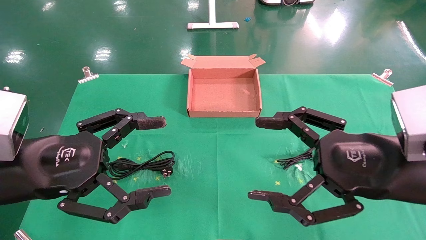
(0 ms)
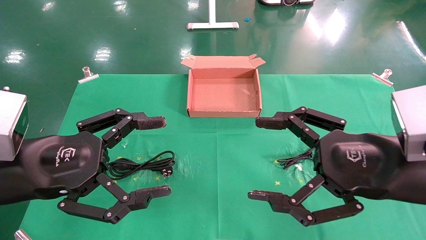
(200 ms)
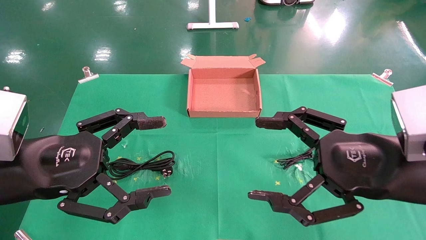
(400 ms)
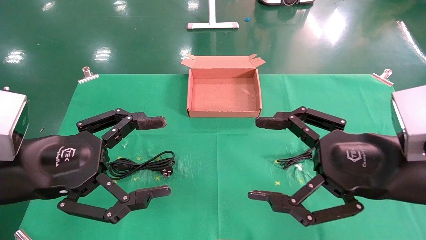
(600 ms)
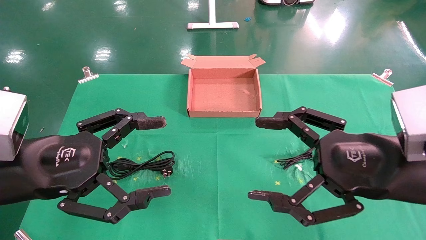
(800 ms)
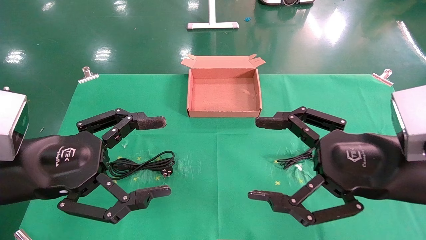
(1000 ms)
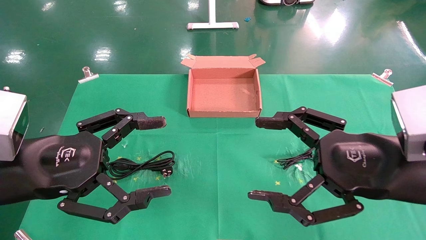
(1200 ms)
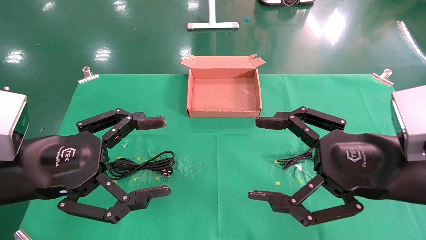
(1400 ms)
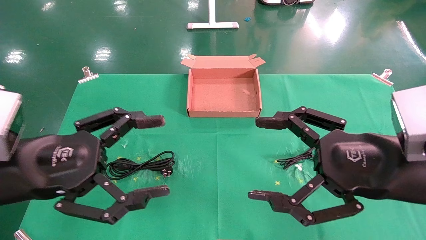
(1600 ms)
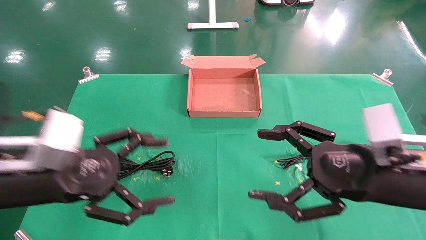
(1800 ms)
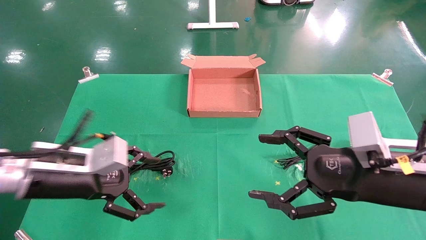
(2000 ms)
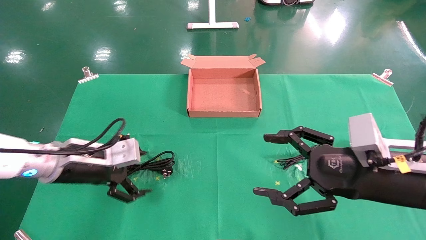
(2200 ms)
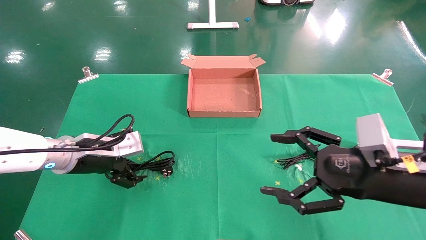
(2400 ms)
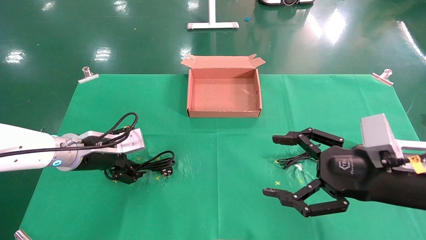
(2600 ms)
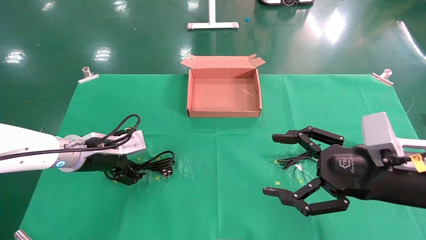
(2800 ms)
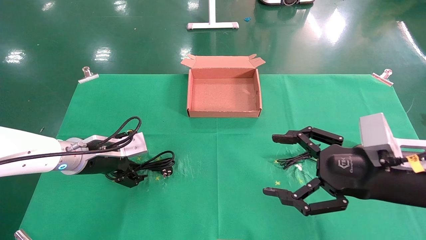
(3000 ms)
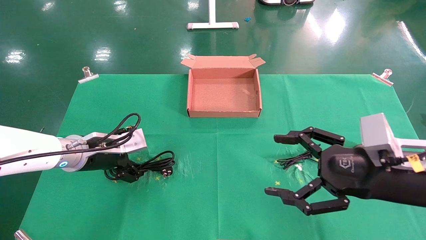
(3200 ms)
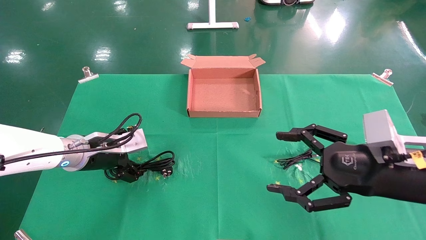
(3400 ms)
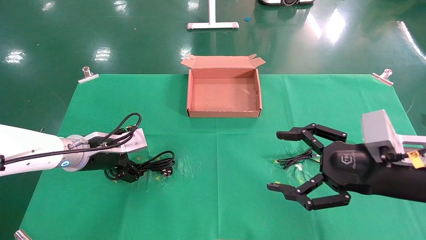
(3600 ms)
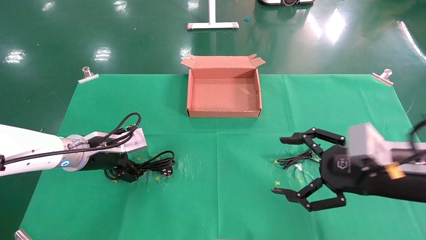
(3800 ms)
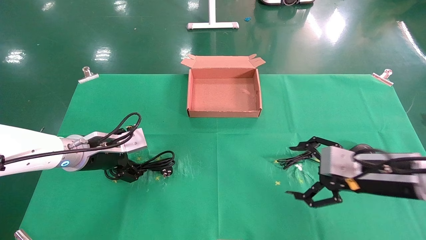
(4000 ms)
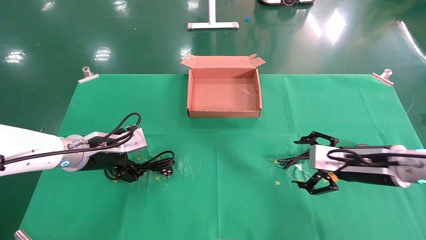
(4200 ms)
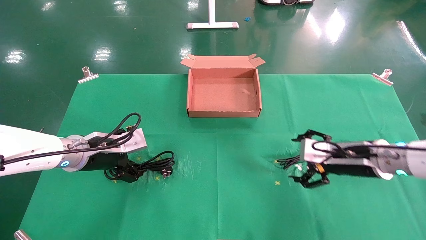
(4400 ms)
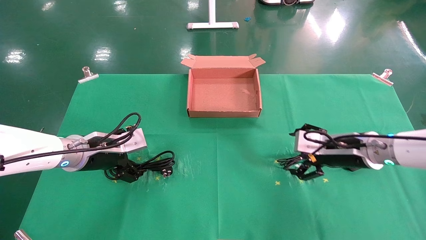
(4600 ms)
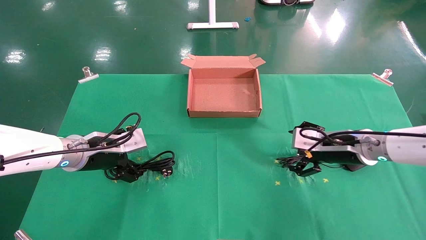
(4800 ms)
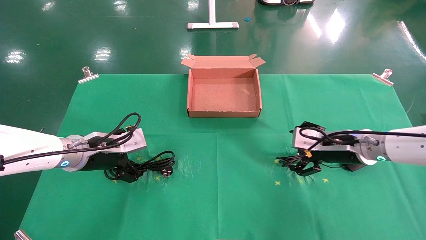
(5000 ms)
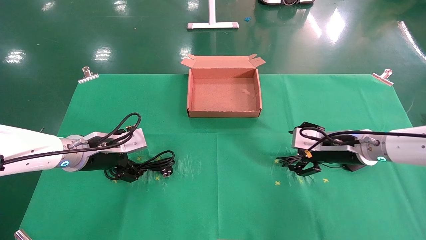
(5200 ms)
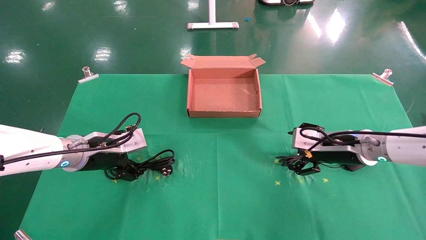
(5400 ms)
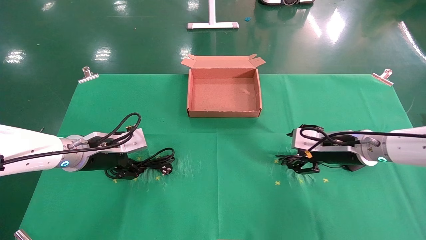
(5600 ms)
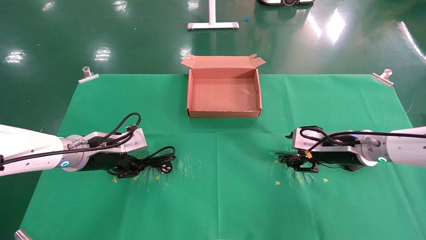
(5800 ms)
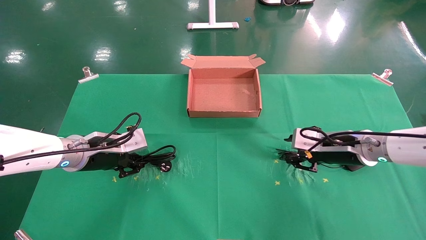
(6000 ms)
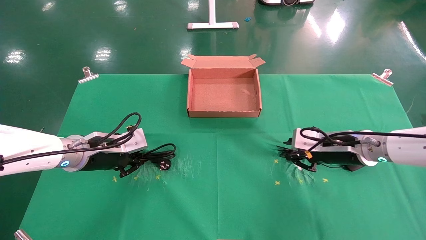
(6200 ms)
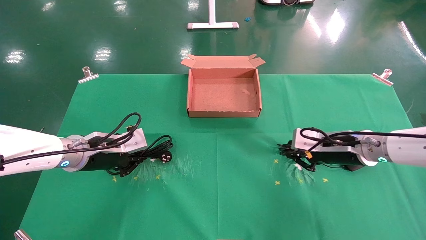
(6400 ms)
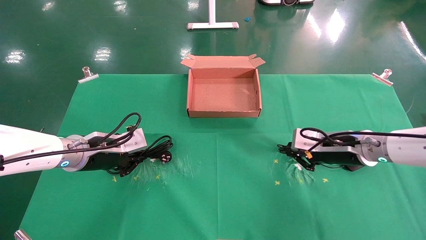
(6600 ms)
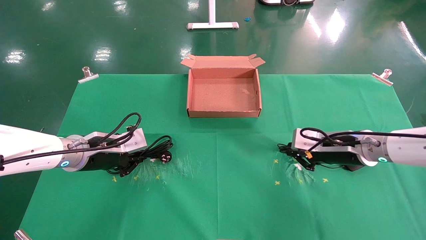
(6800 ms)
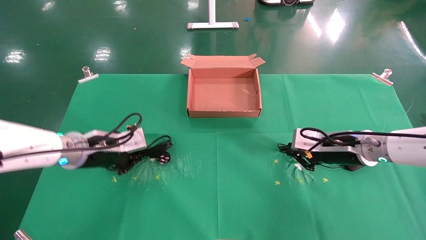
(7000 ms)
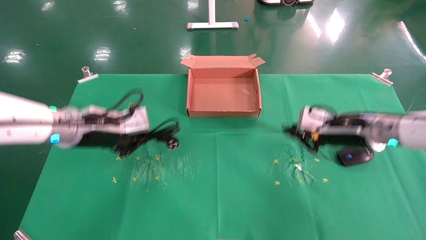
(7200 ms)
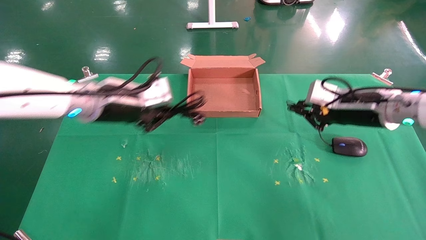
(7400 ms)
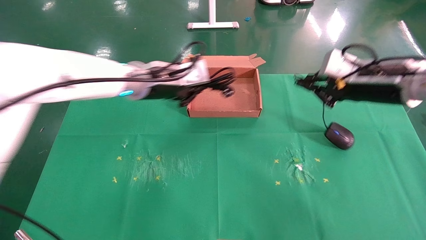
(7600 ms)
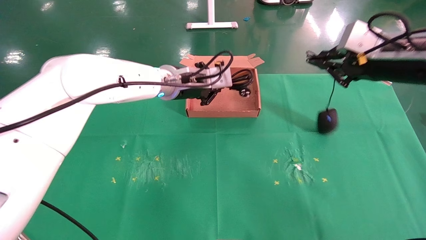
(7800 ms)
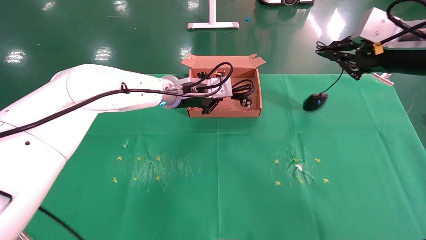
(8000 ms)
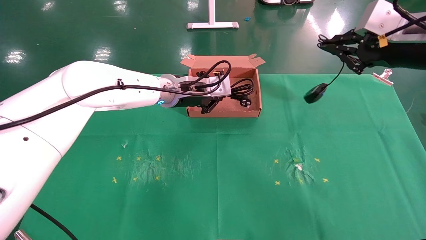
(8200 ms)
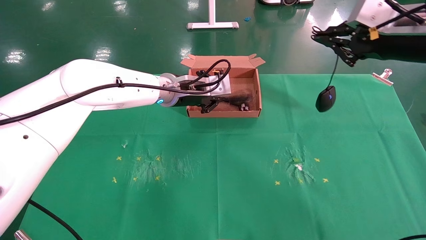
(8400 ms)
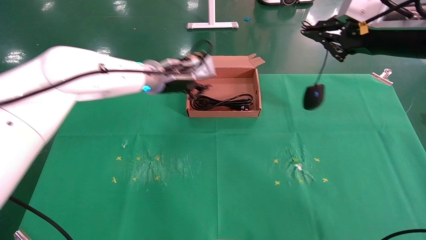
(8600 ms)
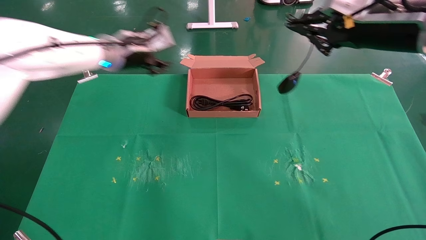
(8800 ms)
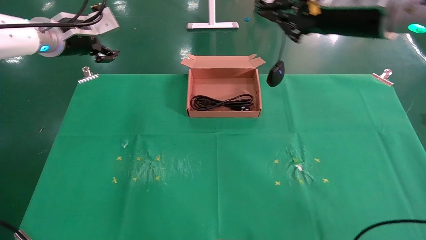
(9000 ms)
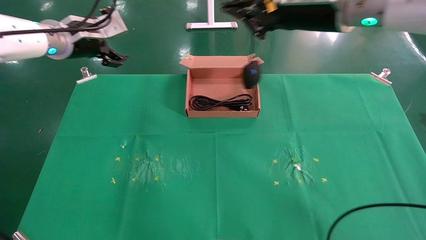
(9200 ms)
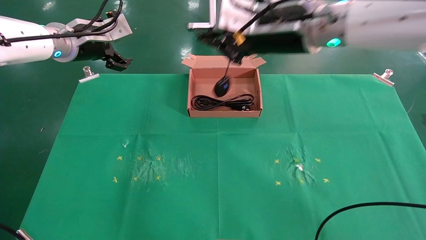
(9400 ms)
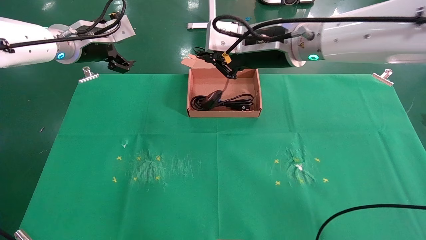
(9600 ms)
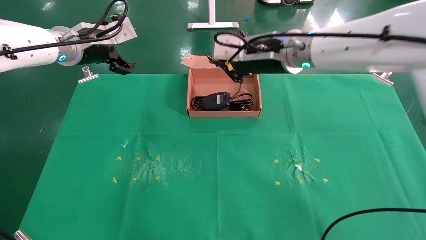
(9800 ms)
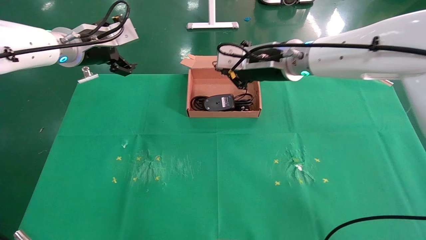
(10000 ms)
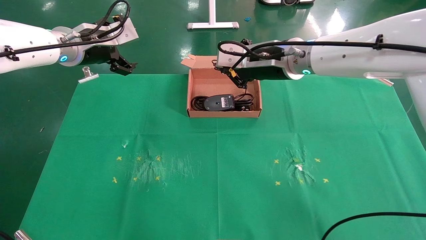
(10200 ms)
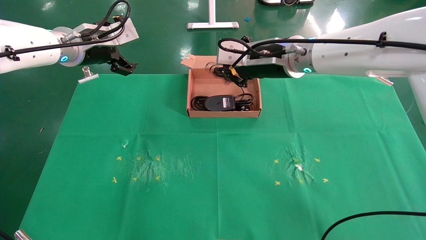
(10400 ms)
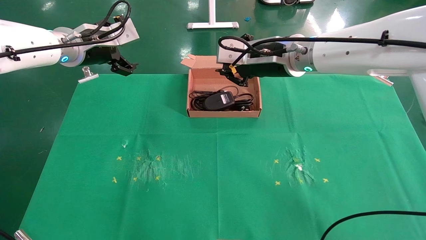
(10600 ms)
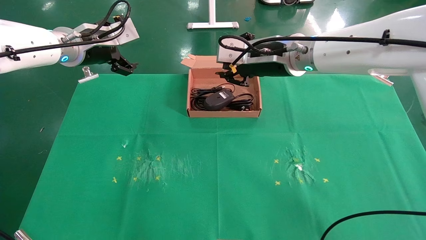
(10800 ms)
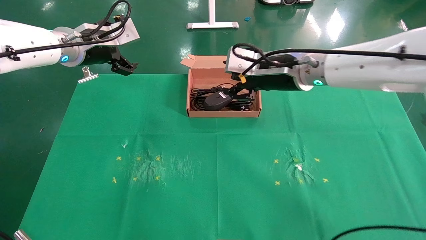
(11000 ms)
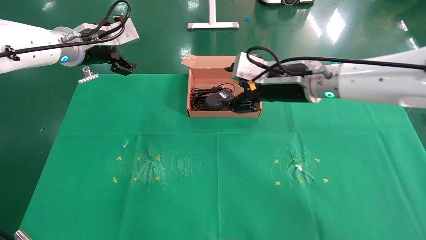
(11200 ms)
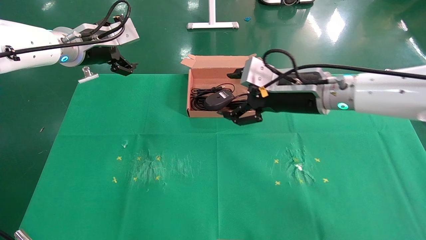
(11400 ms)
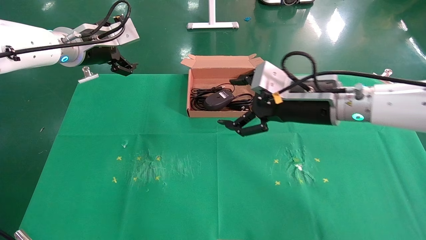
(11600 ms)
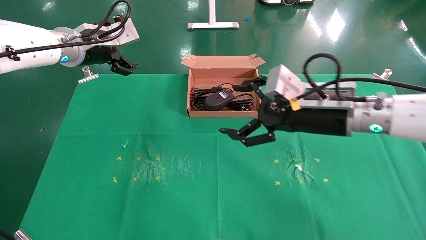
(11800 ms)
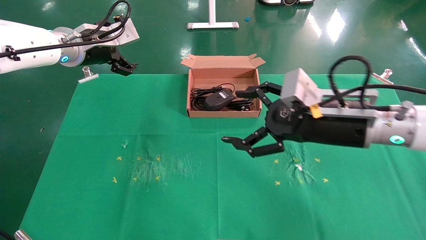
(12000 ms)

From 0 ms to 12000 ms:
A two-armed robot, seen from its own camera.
Task of the whole recording: grasp data cable left put into box grasp mouse right put into box.
Step, from 1800 ms to 6400 ms: Simultaneously pick up the mouse and power cord from the accessory packaging area.
Step, from 6600 ms to 10600 ms: Place the mouse and power cord into the box.
From 0 ms to 1600 ms: The grippers make only small movements.
From 1600 ms to 3000 ms: The right gripper ends up approximately 5 cm from where it was, while the left gripper moves forward, some 15 cm.
From 3000 ms to 4400 ms: The right gripper travels forward by some 10 cm.
From 4400 ms to 6000 ms: The left gripper closes. Meanwhile the right gripper closes up.
From 6000 ms to 7600 ms: The left gripper moves to the right, upward and forward, roughly 20 cm, and closes its fingers. Meanwhile the right gripper shifts roughly 15 cm upward, and closes its fingers.
From 7600 ms to 9000 ms: The left gripper goes about 15 cm to the left and upward, and opens up. Meanwhile the right gripper moves upward and to the left, about 15 cm.
From 9000 ms to 10400 ms: The left gripper opens. Meanwhile the right gripper shifts about 15 cm to the left, forward and downward.
From 10400 ms to 12000 ms: The right gripper travels backward, to the right and downward by about 15 cm, and opens its fingers.

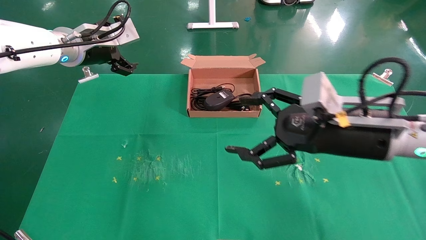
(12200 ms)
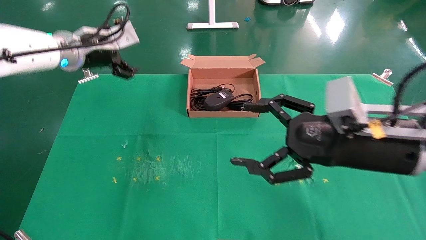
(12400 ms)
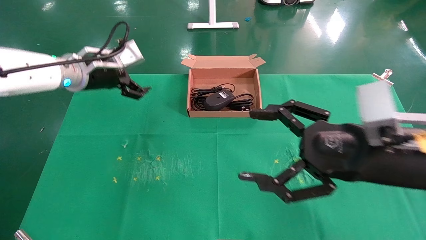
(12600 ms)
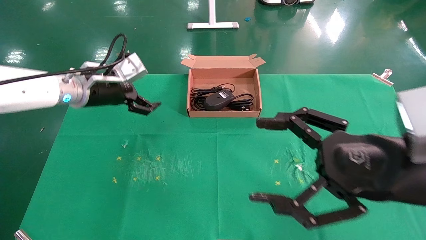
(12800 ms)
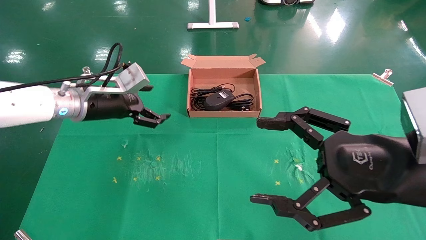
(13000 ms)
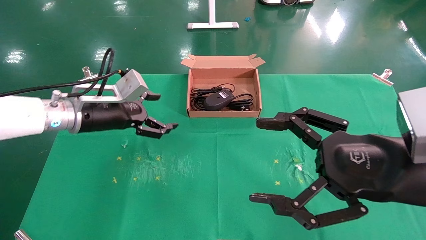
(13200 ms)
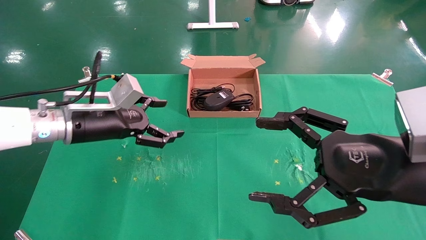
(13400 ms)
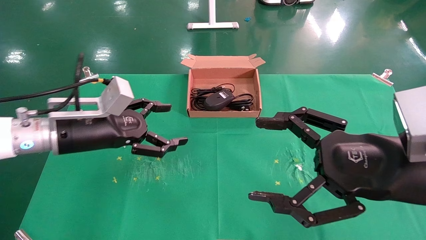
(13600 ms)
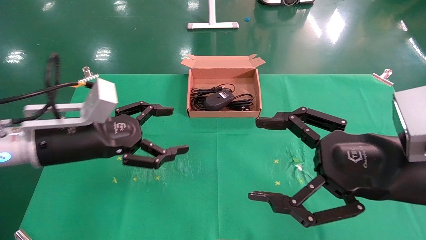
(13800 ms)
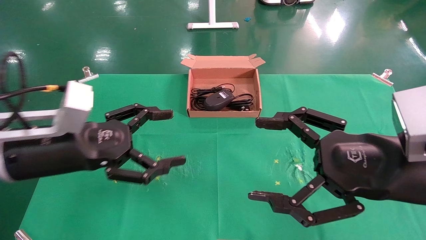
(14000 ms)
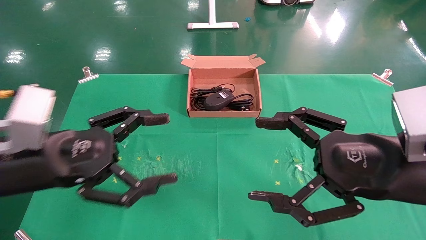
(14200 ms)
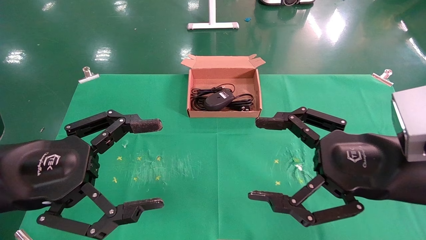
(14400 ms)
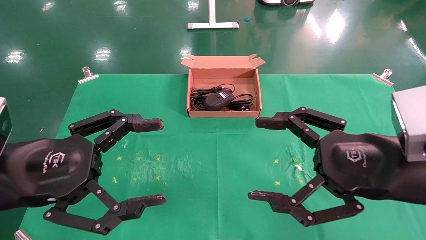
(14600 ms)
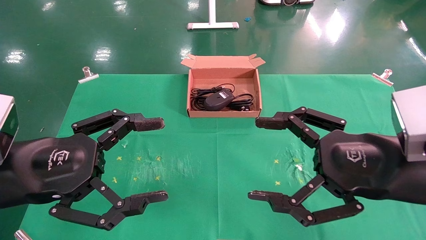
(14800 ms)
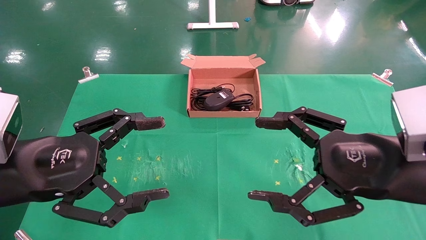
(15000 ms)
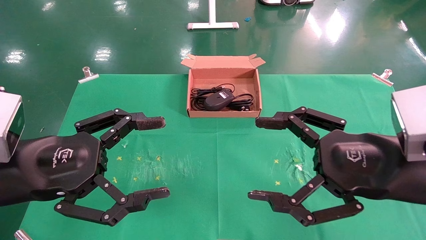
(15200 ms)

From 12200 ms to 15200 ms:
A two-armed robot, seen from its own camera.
Task of the whole recording: grasp data cable left put into box grasp mouse right put into box.
From 12200 ms to 13800 ms: The left gripper shifts some 20 cm backward and downward, while the right gripper moves backward, about 10 cm.
From 13800 ms to 15200 ms: The left gripper moves backward, approximately 10 cm.
